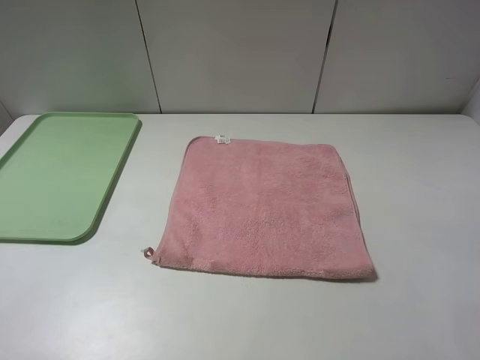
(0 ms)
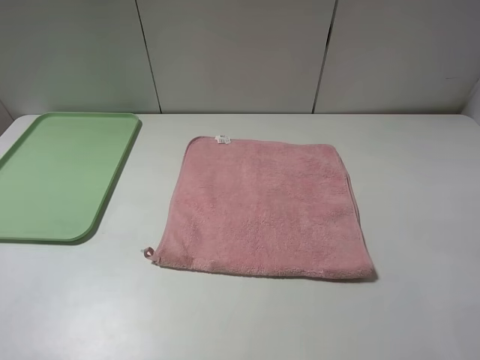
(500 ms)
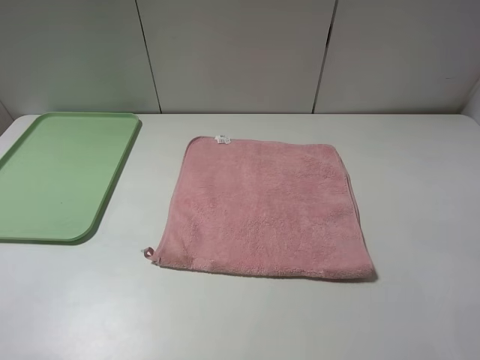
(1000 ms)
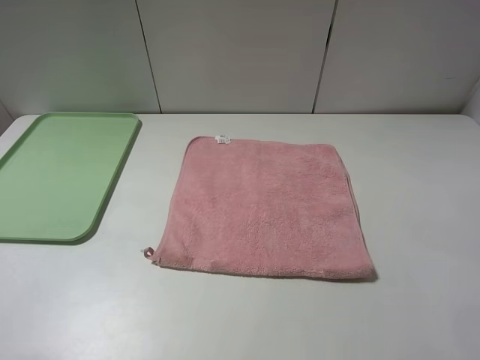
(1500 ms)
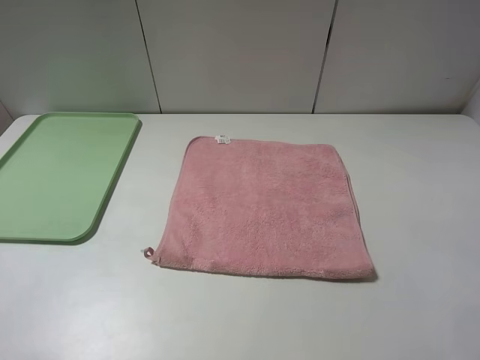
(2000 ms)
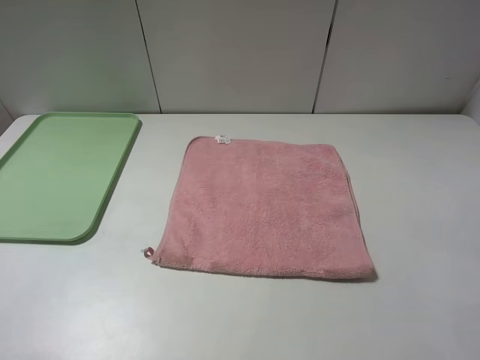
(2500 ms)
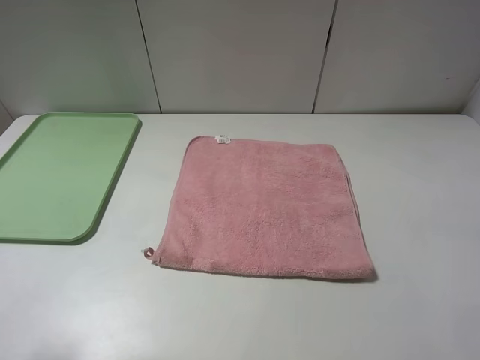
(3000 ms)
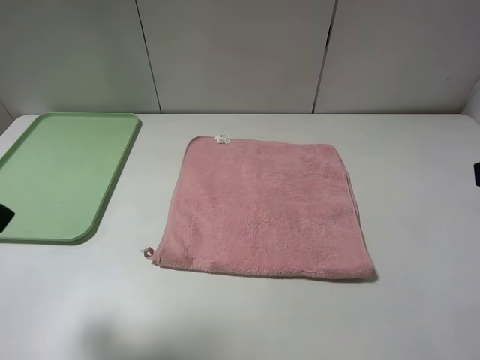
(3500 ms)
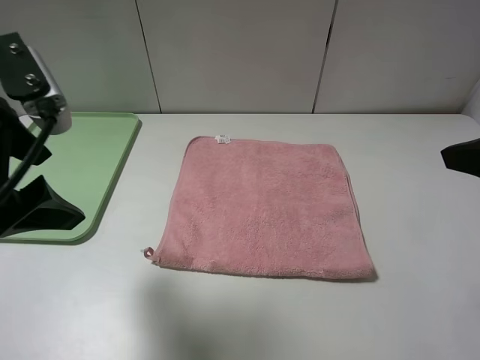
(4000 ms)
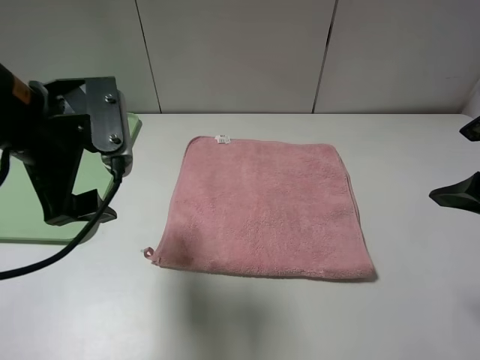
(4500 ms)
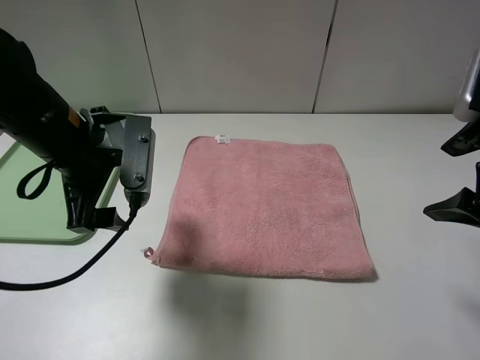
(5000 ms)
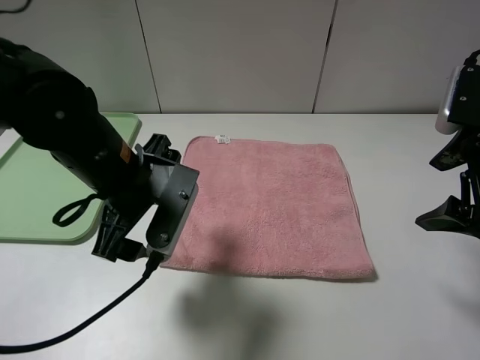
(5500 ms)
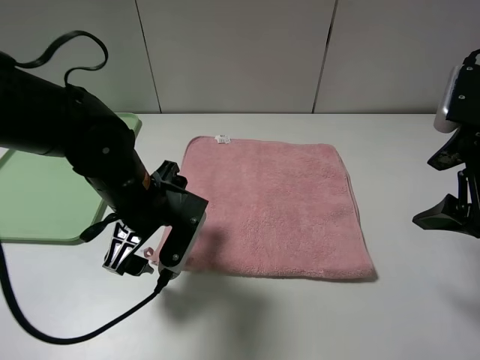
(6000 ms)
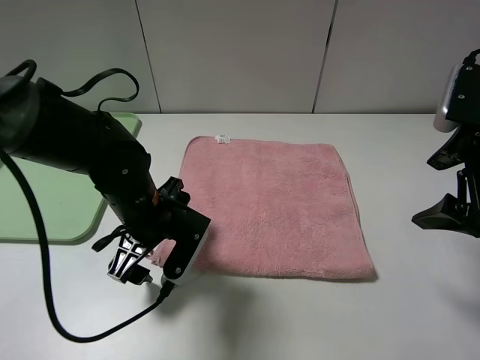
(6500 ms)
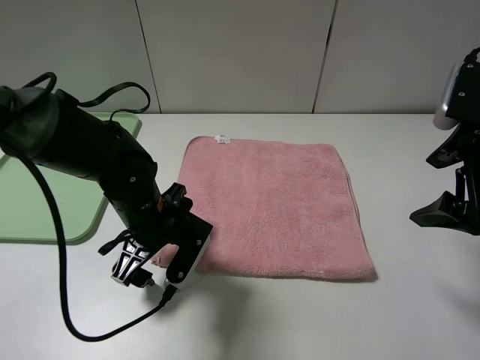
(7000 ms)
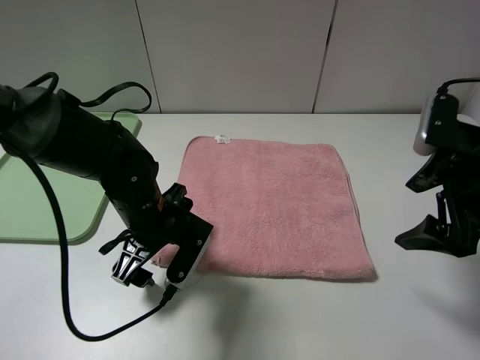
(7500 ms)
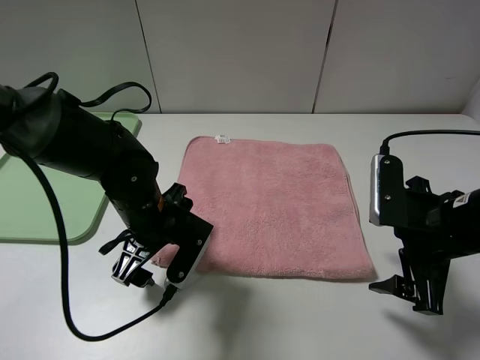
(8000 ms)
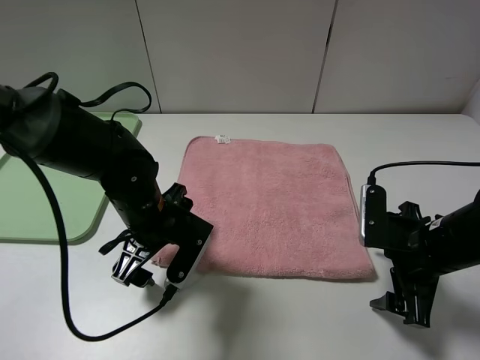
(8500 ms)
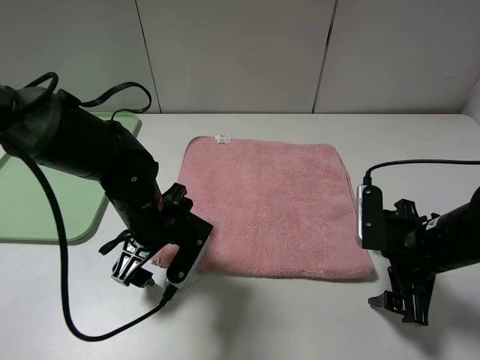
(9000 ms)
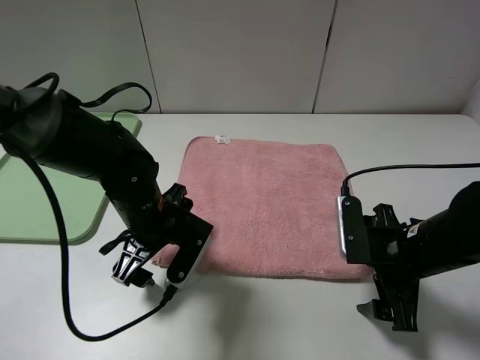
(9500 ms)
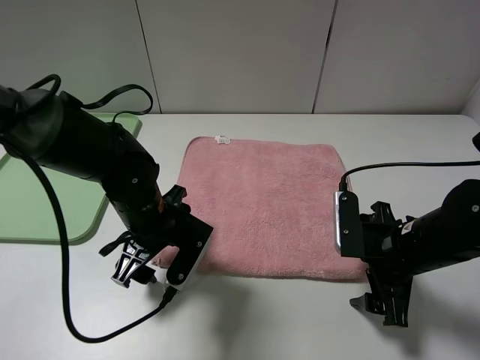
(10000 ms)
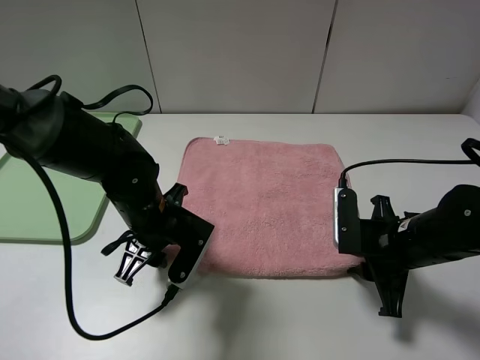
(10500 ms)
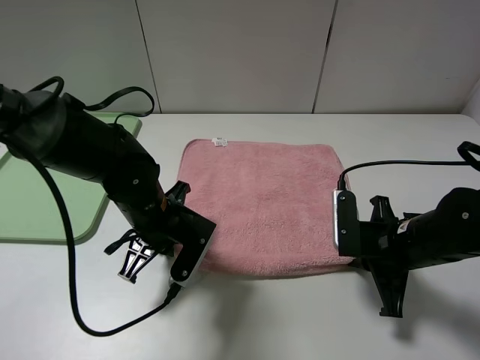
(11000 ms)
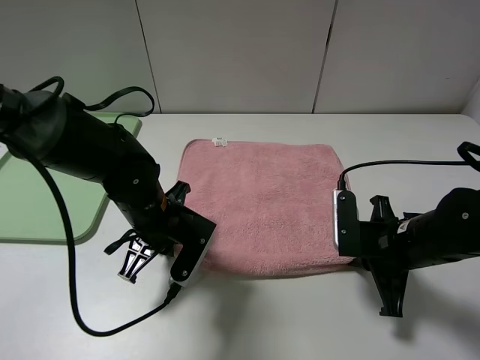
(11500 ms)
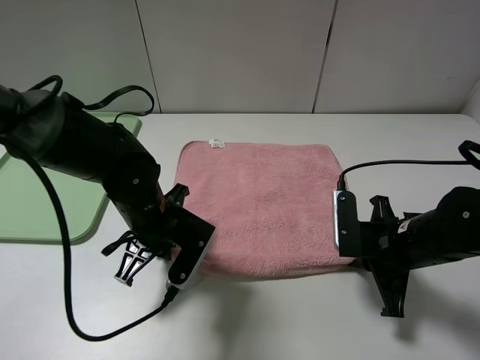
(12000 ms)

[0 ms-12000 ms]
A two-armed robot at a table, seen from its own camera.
0 ms to 2000 ms: The two grippers keep their place.
2000 ms to 4000 ms: The left gripper travels forward and to the right by roughly 20 cm, while the right gripper shifts about 15 cm forward.
4000 ms to 6000 ms: The right gripper is displaced downward and forward by about 10 cm. Meanwhile the left gripper is displaced downward and to the right by approximately 20 cm.
6000 ms to 8000 ms: The right gripper is displaced downward by approximately 10 cm.
8000 ms to 10000 ms: The right gripper heads downward, covering roughly 5 cm.
10000 ms to 12000 ms: The left gripper closes. The right gripper closes.

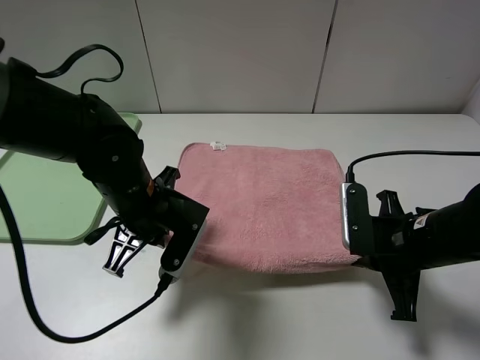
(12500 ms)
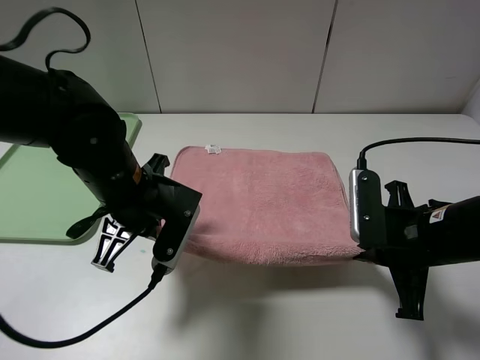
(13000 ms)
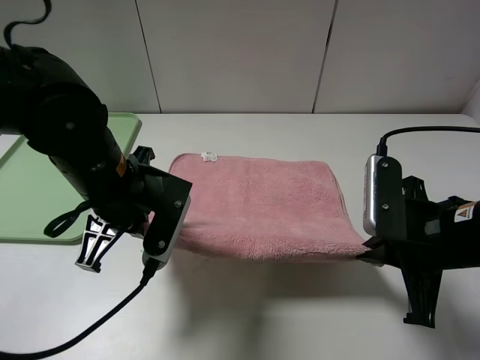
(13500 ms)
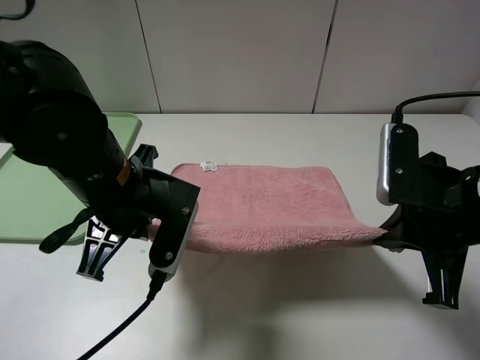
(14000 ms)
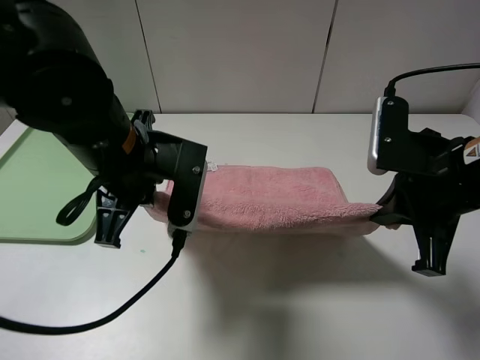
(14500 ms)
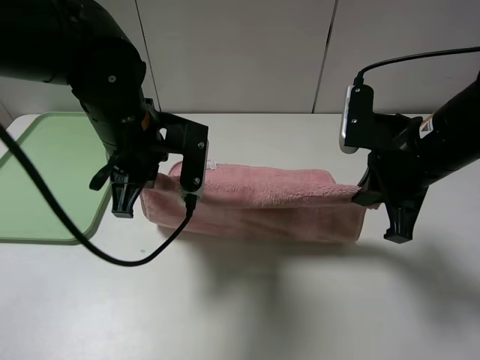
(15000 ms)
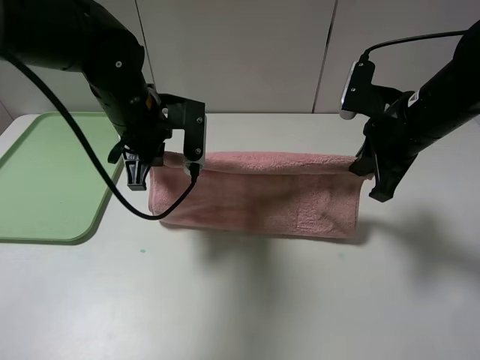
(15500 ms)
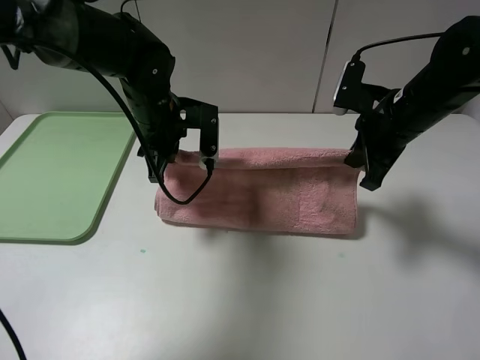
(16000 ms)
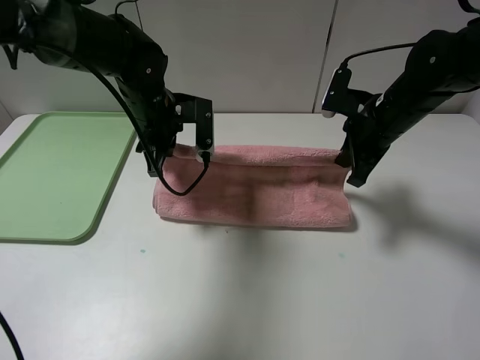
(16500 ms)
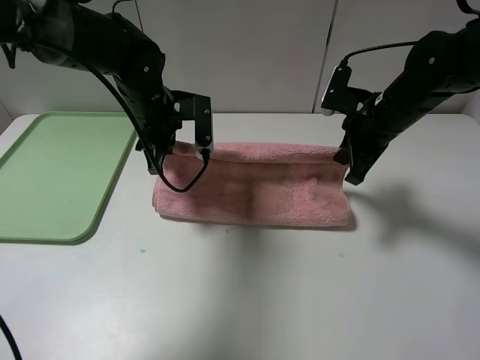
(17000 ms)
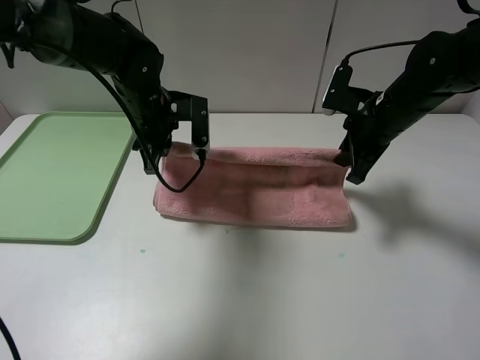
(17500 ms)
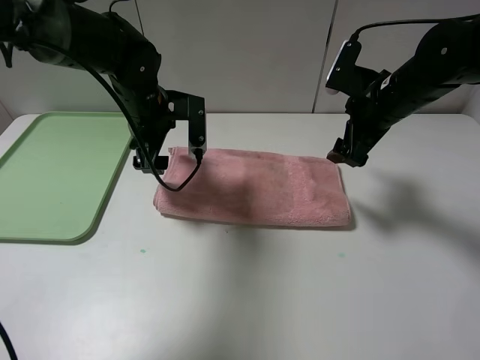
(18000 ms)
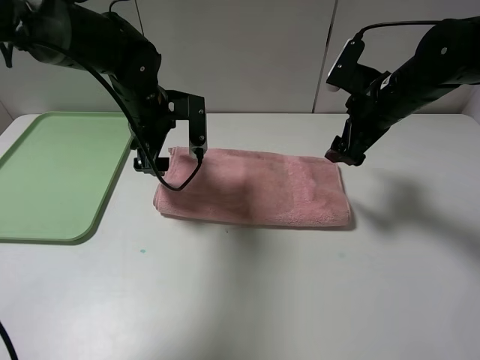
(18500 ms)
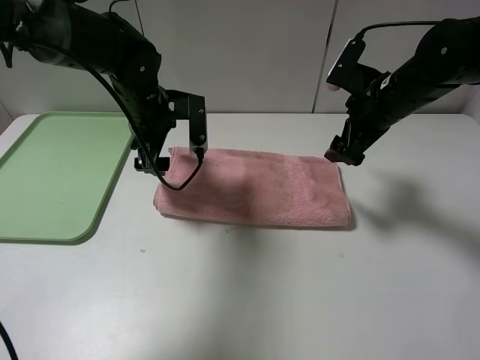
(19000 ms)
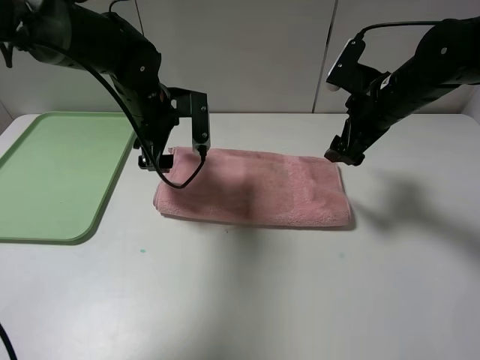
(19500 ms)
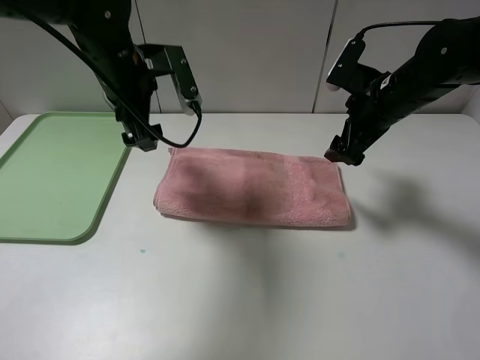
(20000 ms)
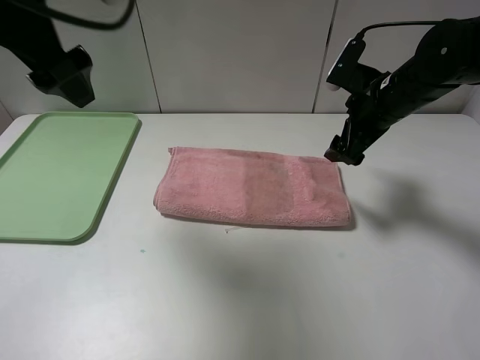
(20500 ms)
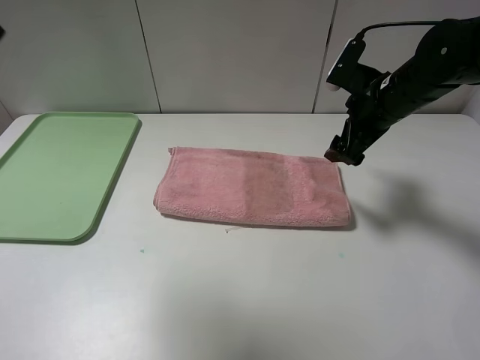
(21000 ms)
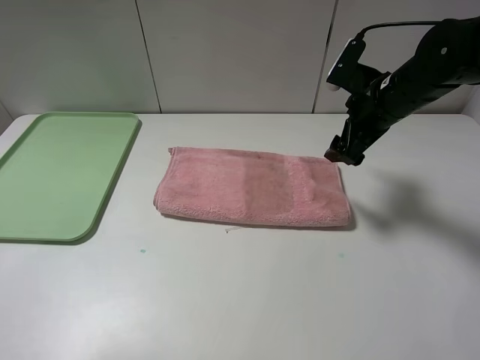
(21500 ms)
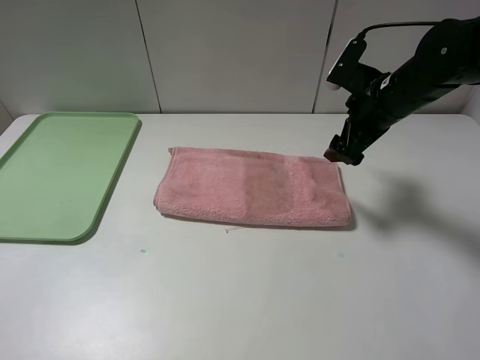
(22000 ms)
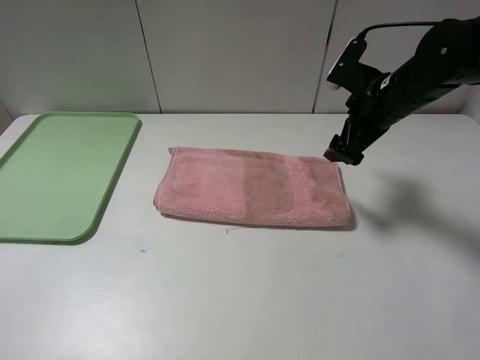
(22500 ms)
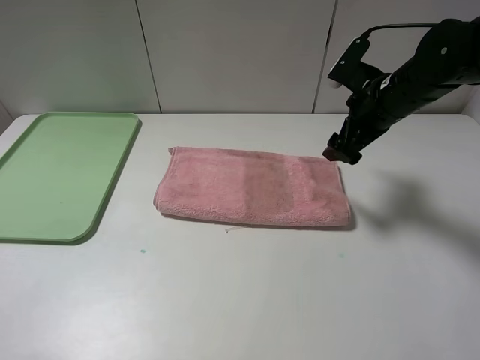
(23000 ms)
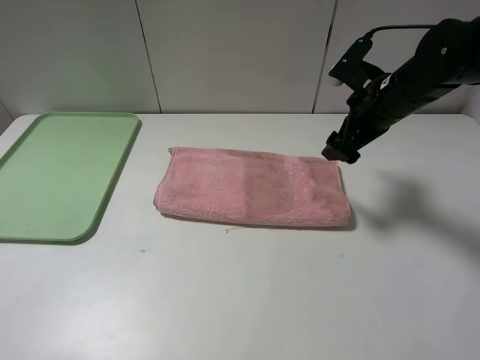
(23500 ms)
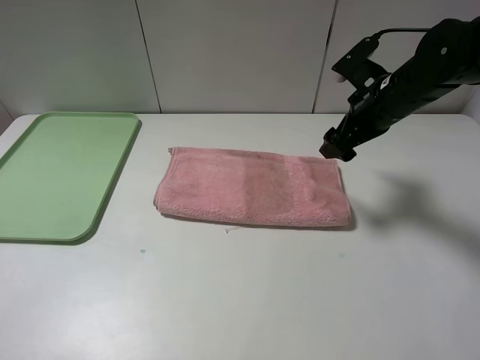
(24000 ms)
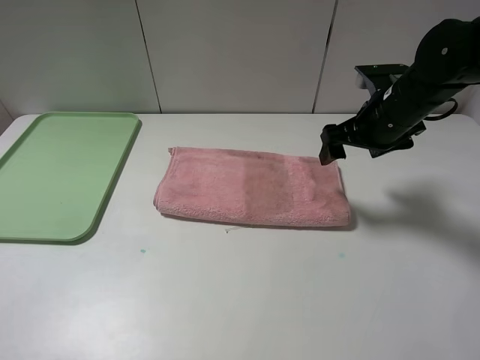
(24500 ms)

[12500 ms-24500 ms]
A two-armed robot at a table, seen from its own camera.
Step, 12500 ms to 17500 ms: Fold the pink towel upwards.
12500 ms to 14500 ms: The grippers both shift upward by some 10 cm.
14500 ms to 16500 ms: The grippers both shift forward by approximately 15 cm.
16500 ms to 18500 ms: The left gripper opens; the right gripper opens its fingers.
18500 ms to 20500 ms: The left gripper moves upward and backward, roughly 25 cm.
20500 ms to 22500 ms: The left gripper moves backward, to the left and downward, about 30 cm.

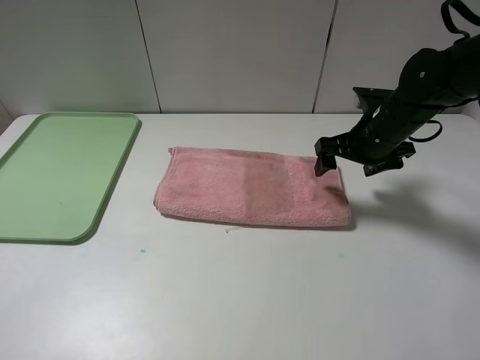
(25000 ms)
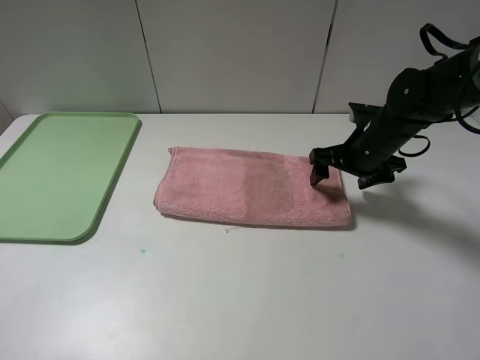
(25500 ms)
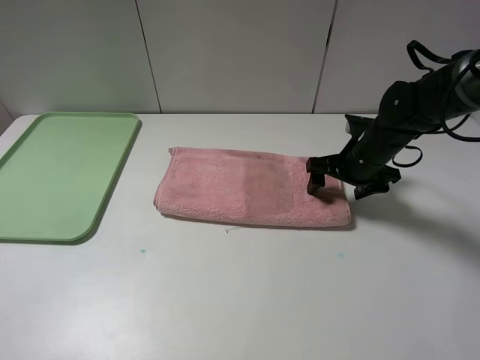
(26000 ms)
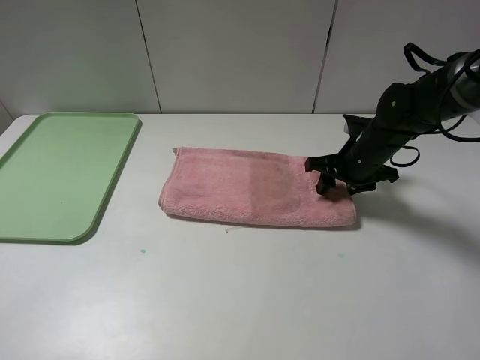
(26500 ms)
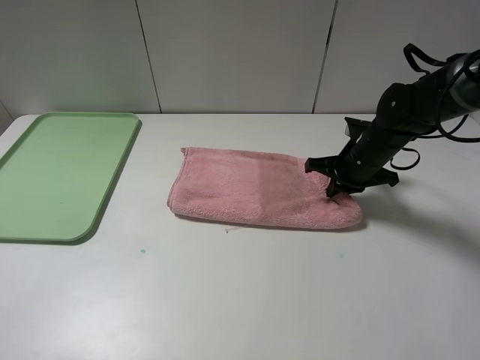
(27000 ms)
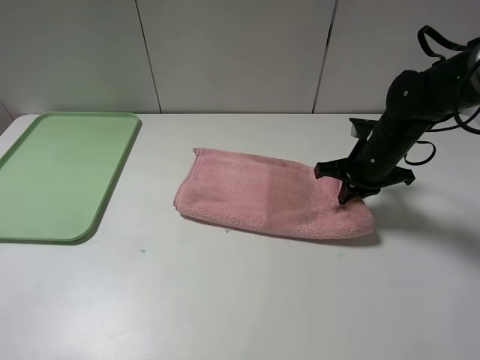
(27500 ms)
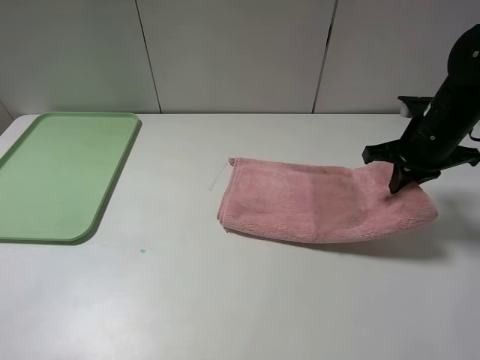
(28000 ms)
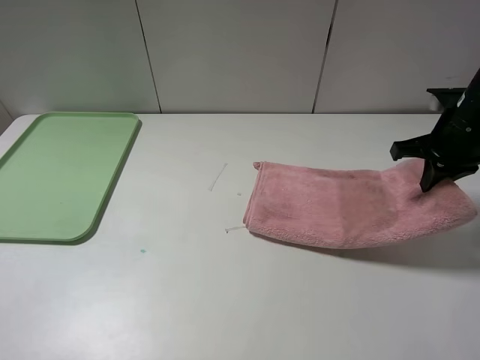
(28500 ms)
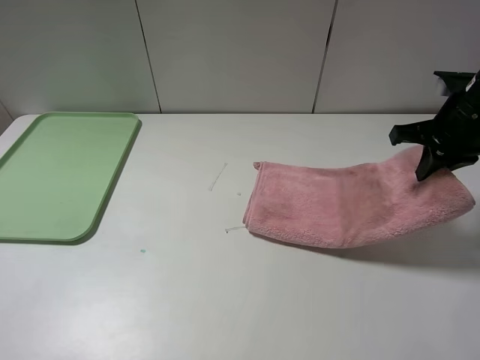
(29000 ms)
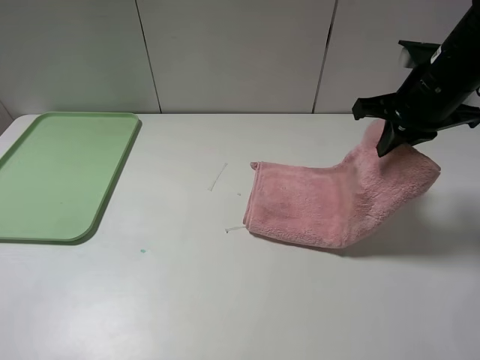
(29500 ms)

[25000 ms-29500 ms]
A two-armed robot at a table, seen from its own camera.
25000 ms to 27000 ms: The right gripper heads downward, covering roughly 5 cm, and closes its fingers.
27000 ms to 29500 ms: The right gripper moves upward, roughly 15 cm.
